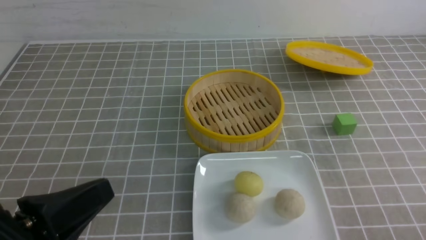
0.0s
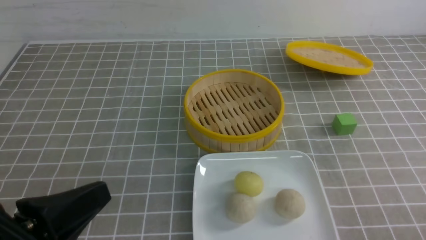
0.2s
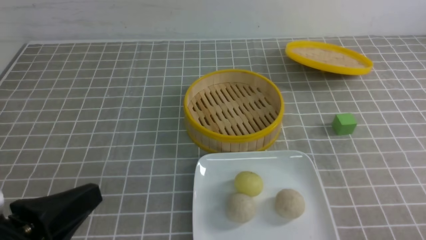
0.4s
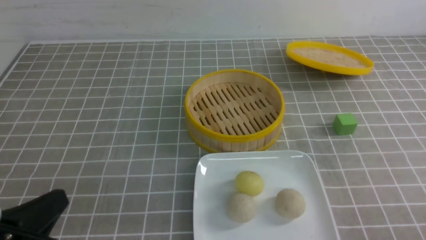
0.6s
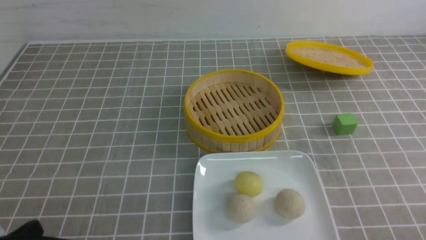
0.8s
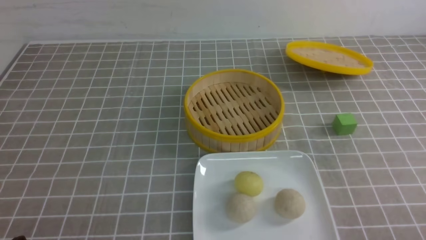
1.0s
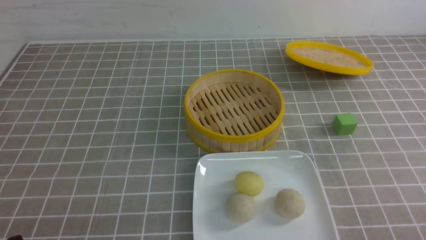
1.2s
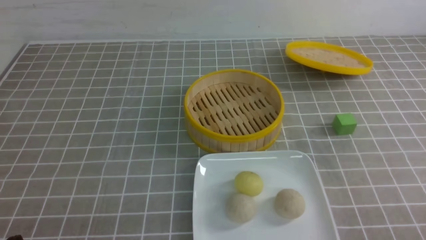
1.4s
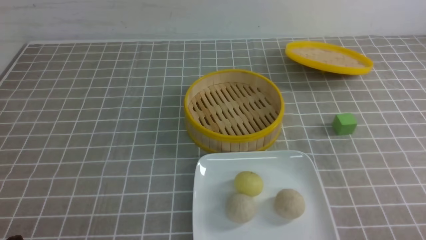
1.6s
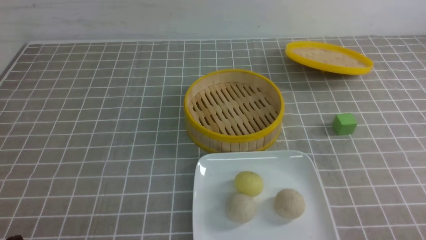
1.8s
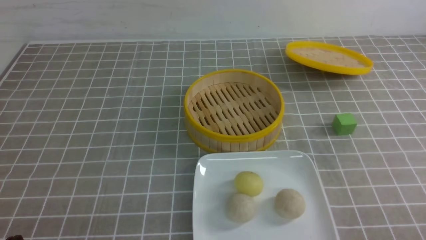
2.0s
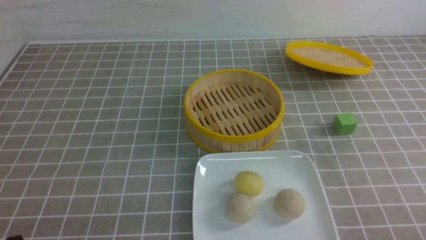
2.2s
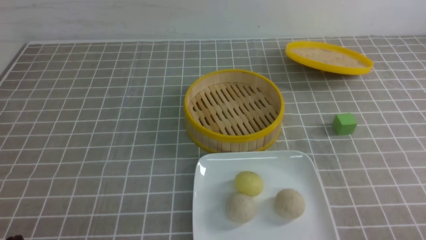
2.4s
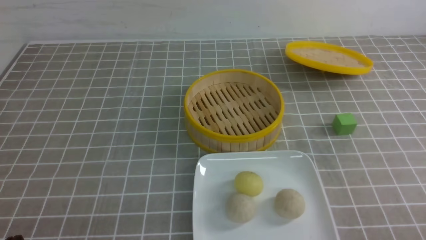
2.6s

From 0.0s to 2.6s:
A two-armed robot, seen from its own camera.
From 0.0s to 1.2s: The left gripper moves downward and to the left, roughly 15 cm.
From 1.2s to 2.6s: Both grippers stay put.
